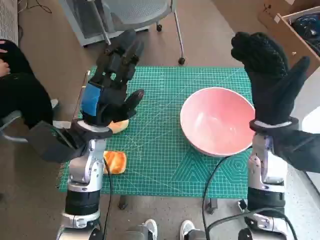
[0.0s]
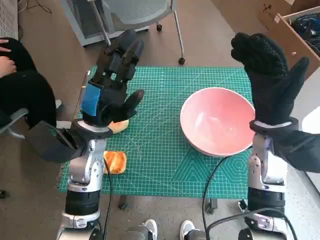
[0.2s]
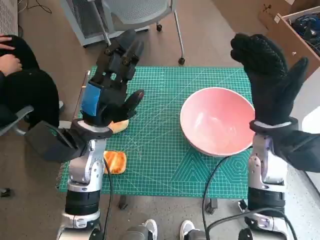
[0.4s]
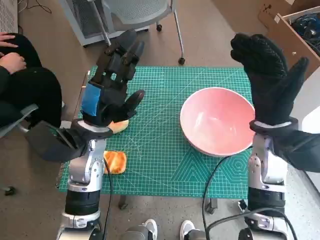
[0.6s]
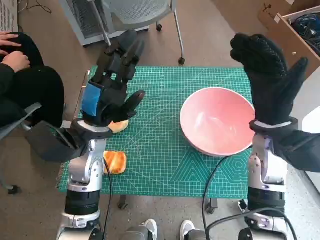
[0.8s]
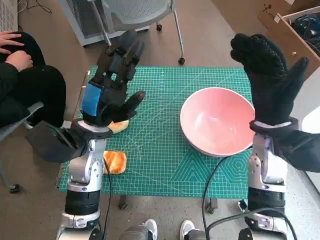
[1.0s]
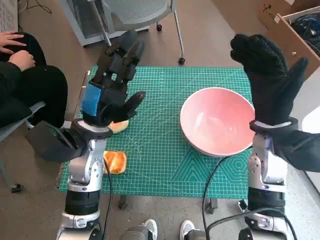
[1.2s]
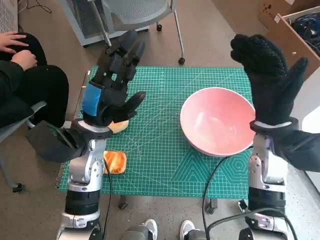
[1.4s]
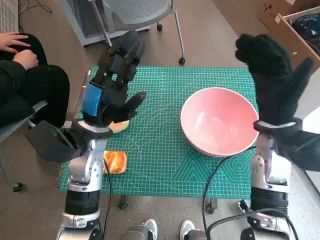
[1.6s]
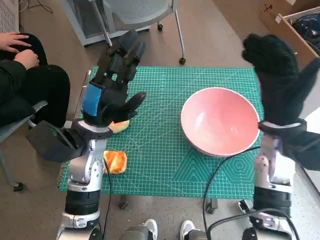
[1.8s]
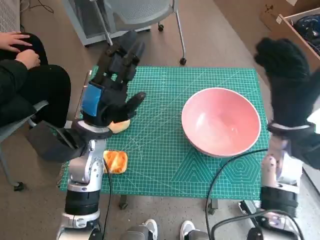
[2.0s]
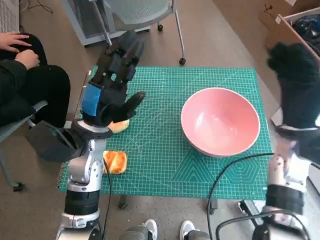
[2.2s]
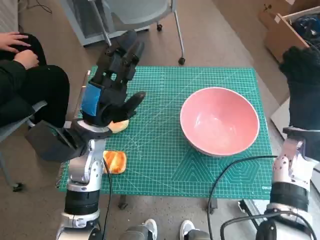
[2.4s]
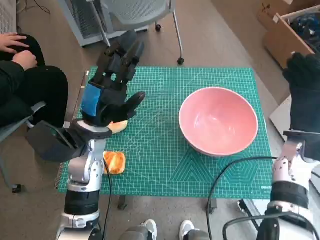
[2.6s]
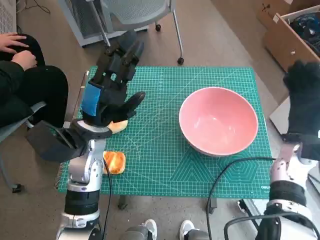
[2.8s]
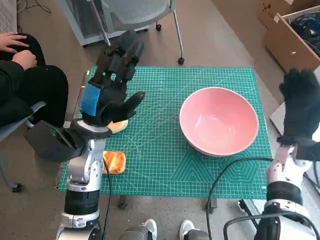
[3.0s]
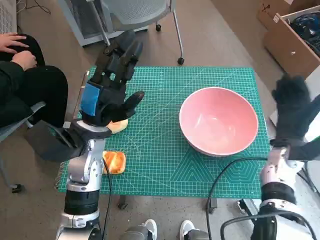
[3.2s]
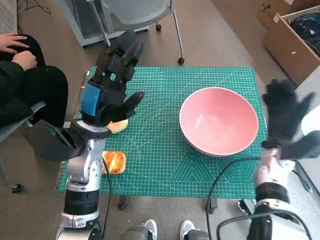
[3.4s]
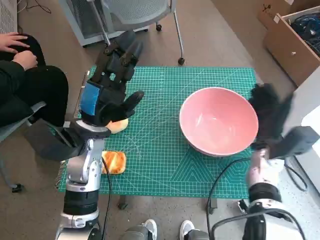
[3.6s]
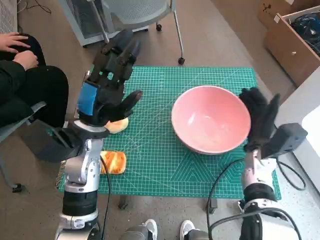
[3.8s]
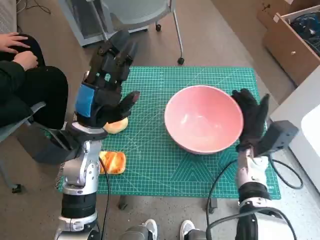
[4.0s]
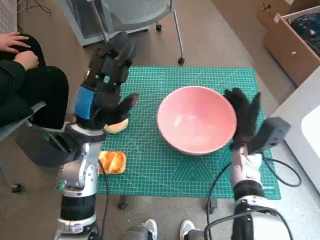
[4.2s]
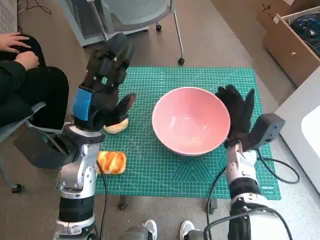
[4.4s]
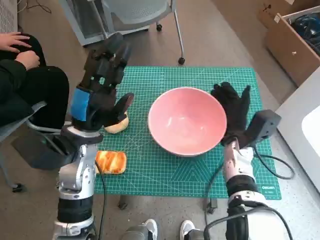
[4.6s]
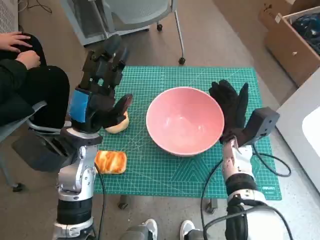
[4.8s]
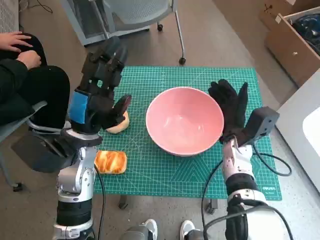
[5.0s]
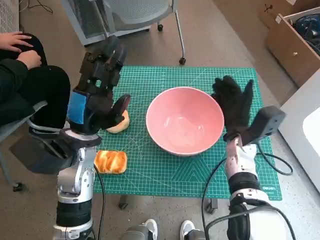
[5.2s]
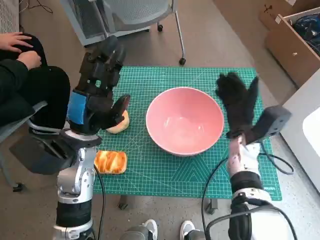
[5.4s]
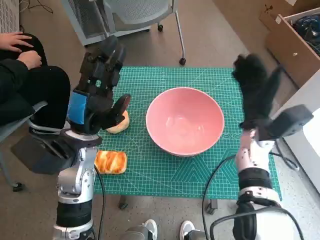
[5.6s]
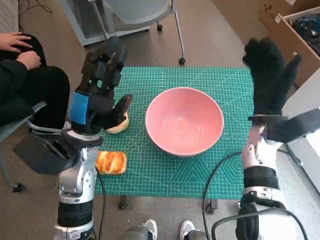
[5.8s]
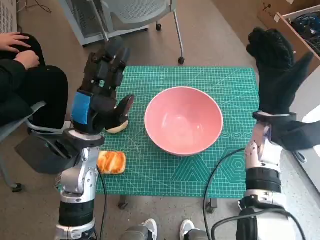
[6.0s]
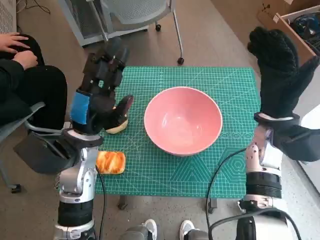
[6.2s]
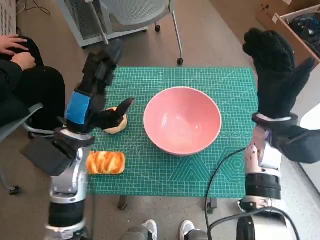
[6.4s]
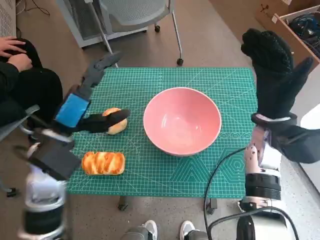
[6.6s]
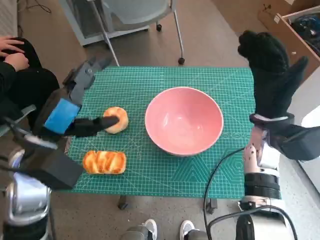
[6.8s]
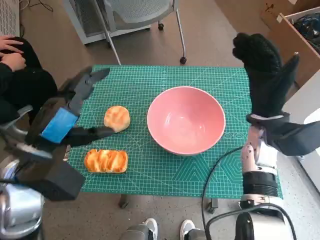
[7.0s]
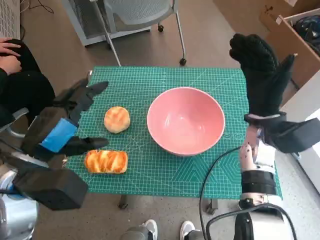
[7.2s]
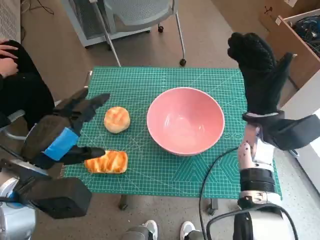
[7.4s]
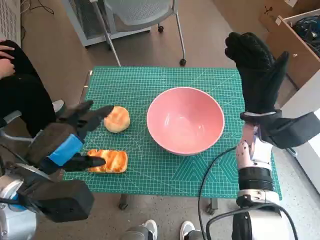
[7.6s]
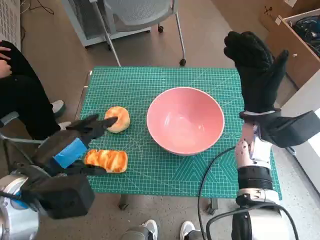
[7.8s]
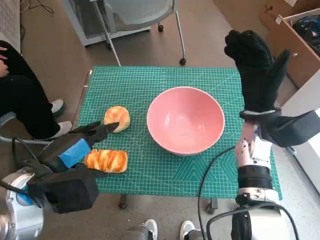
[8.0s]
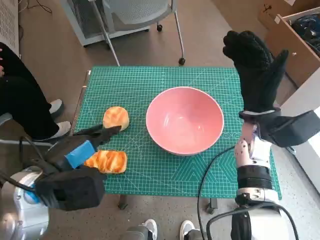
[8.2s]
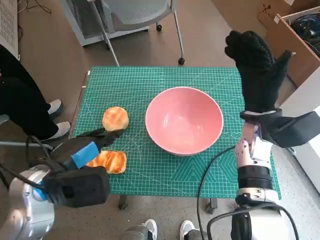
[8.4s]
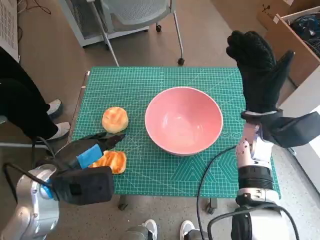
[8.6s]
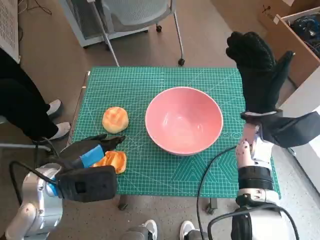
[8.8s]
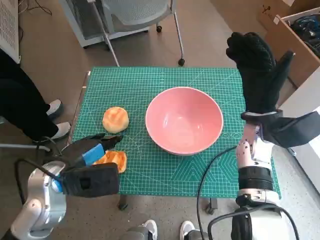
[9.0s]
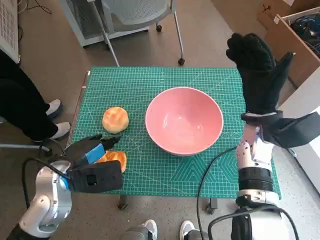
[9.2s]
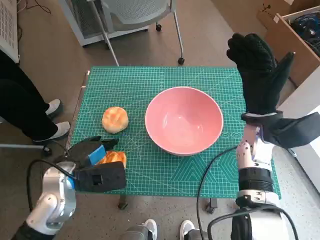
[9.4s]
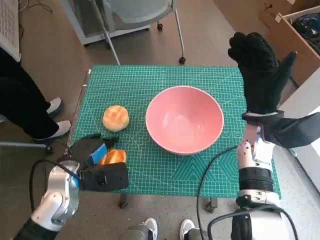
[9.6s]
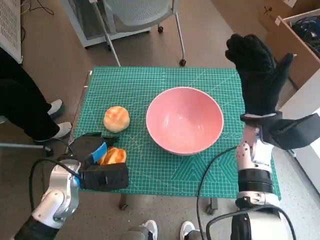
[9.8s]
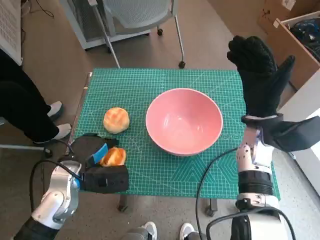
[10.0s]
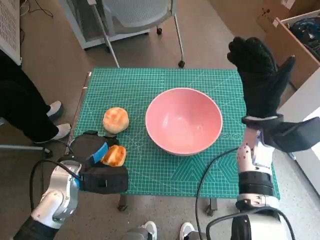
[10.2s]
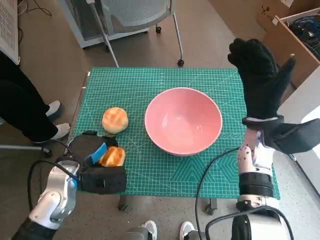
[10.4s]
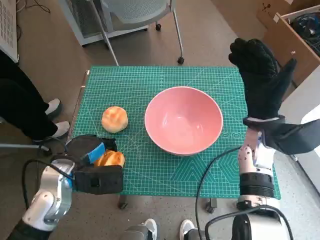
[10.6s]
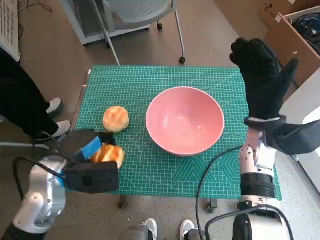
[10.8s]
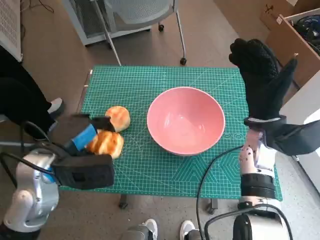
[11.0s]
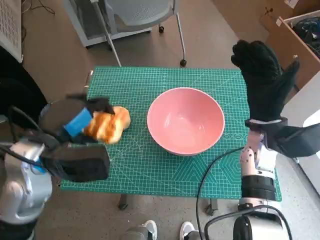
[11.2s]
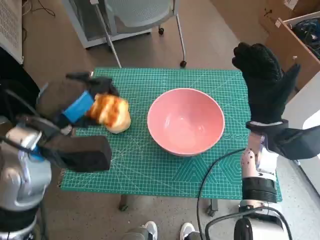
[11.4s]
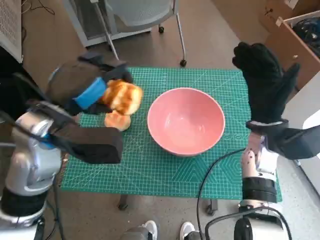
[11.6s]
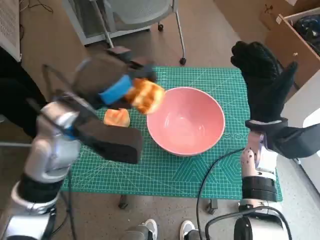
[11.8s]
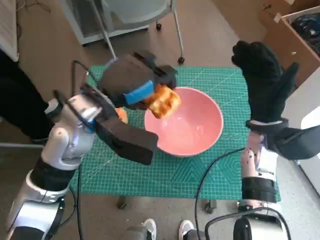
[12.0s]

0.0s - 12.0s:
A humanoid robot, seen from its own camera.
Step, 0.0s - 4.8s: Move the pink bowl to the center of table with right hand.
Step, 5.0s - 10.0s: Grasp the long bread with left hand.
1.6s - 3.0s: The right hand travels downward and to the right by about 10 cm.
3.0s - 4.4s: The right hand is displaced to the left by roughly 10 cm.
4.4s - 6.0s: The right hand is displaced upward by approximately 10 cm.
6.0s - 7.6s: The left hand shifts approximately 10 cm backward and to the left.
7.6s - 9.0s: The left hand changes place by roughly 5 cm.
9.0s - 10.4s: The left hand travels downward by some 5 cm.
10.4s - 12.0s: The left hand shifts roughly 15 cm upward and to the right.

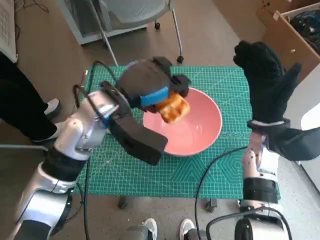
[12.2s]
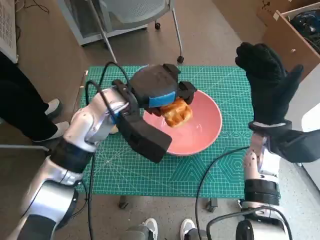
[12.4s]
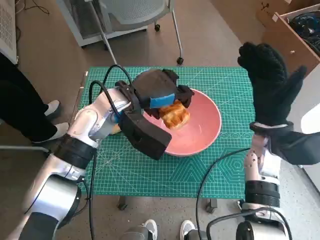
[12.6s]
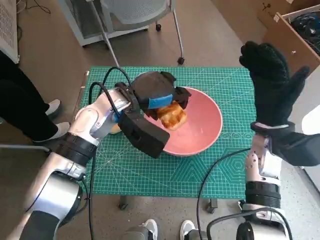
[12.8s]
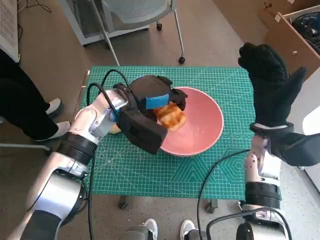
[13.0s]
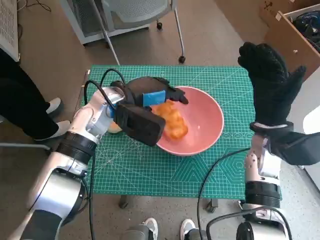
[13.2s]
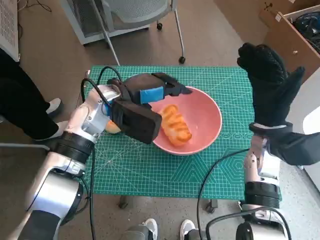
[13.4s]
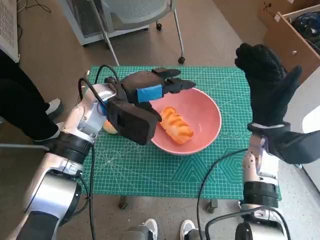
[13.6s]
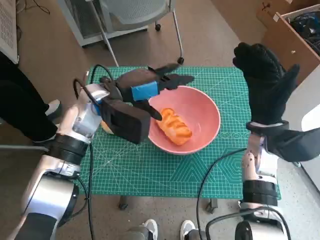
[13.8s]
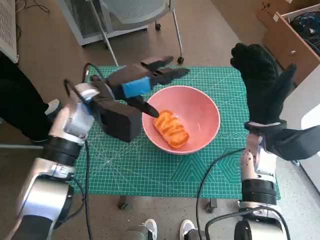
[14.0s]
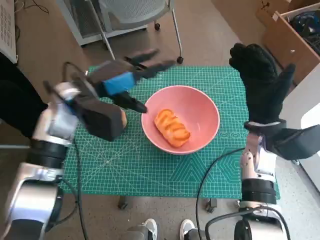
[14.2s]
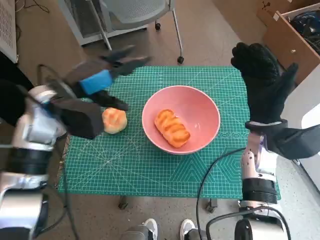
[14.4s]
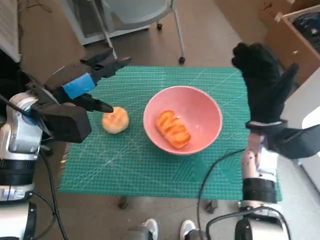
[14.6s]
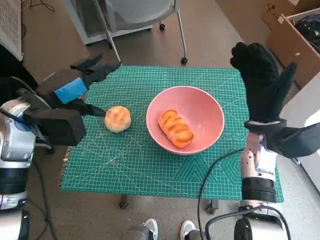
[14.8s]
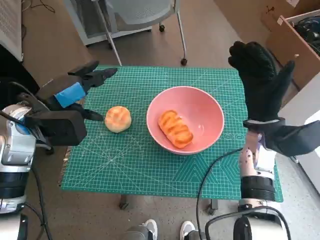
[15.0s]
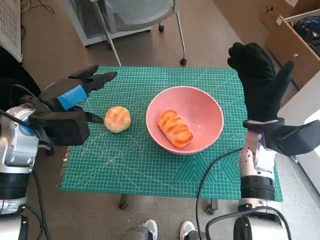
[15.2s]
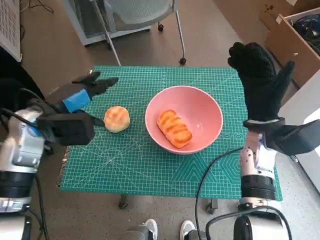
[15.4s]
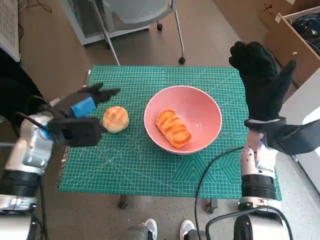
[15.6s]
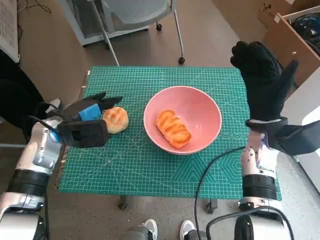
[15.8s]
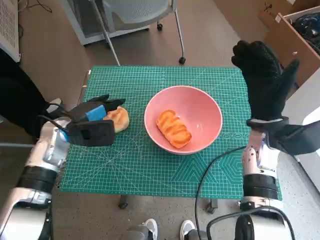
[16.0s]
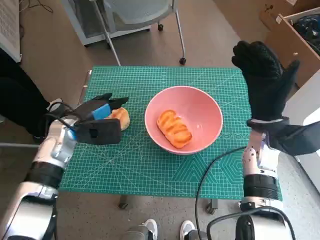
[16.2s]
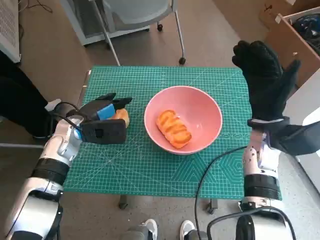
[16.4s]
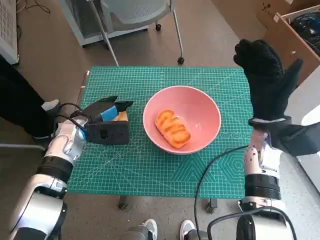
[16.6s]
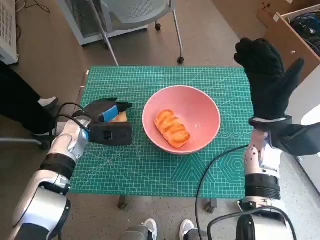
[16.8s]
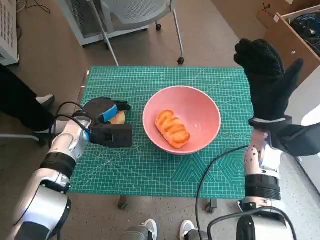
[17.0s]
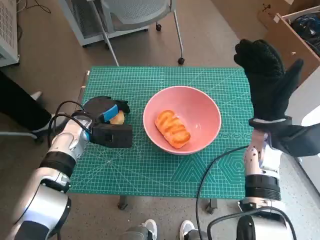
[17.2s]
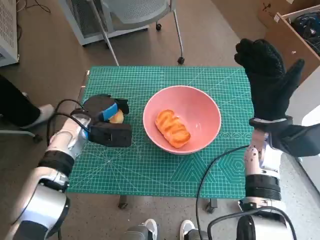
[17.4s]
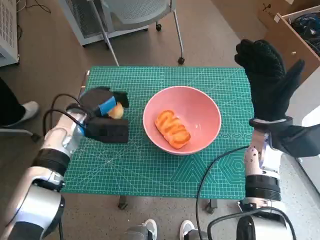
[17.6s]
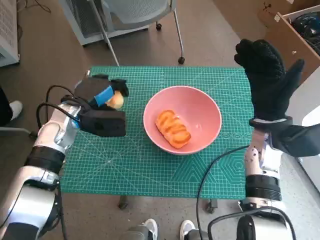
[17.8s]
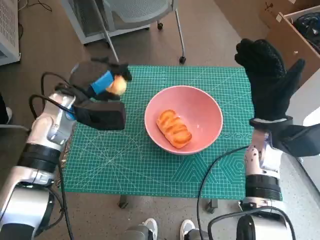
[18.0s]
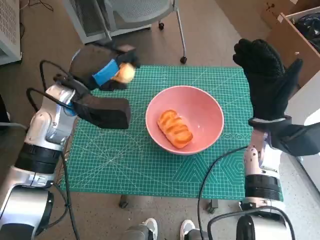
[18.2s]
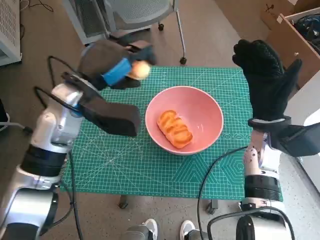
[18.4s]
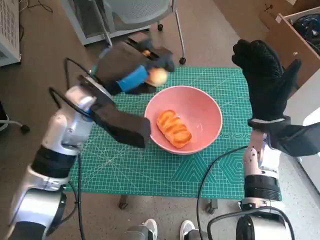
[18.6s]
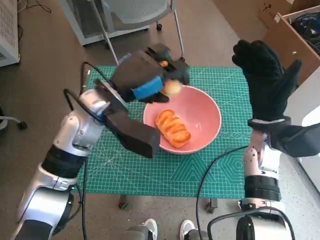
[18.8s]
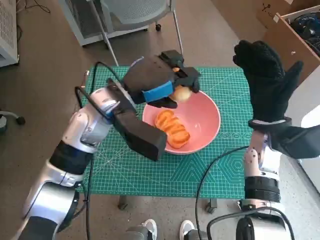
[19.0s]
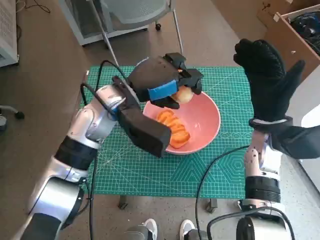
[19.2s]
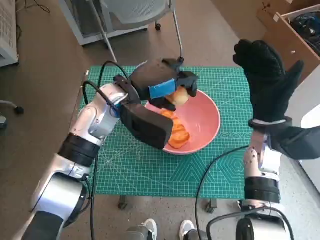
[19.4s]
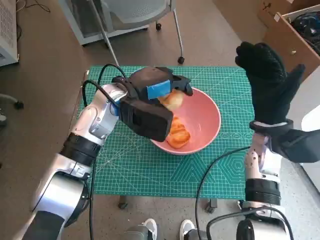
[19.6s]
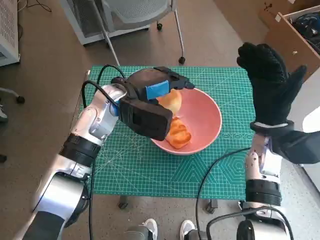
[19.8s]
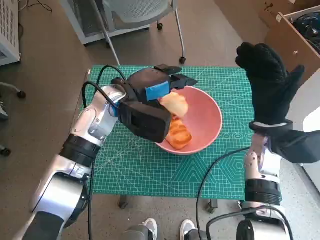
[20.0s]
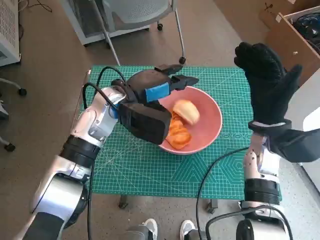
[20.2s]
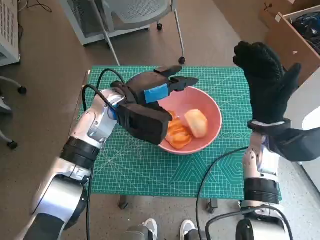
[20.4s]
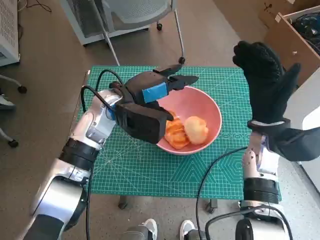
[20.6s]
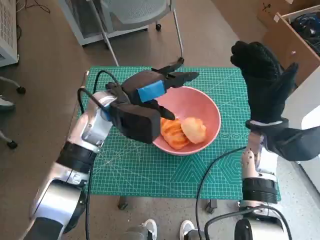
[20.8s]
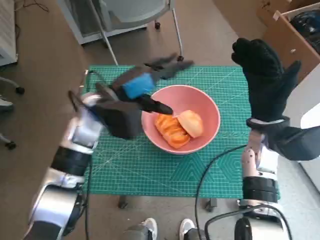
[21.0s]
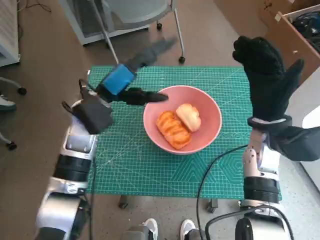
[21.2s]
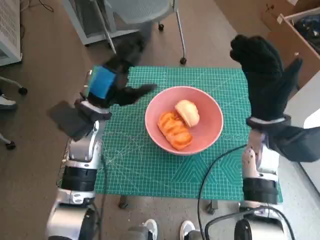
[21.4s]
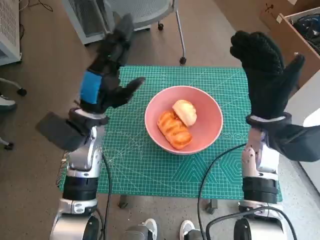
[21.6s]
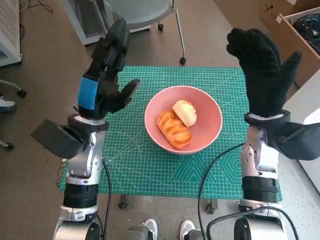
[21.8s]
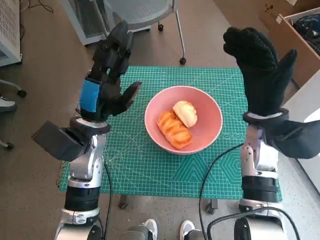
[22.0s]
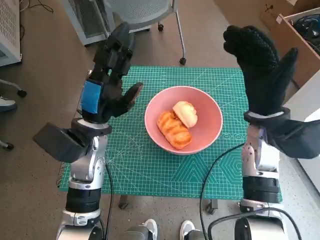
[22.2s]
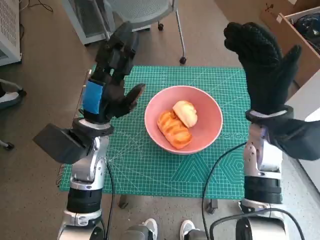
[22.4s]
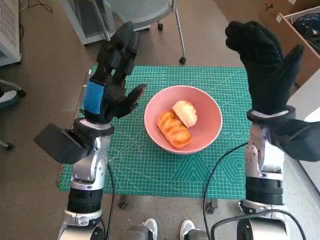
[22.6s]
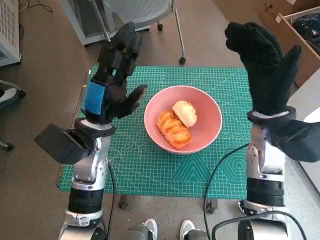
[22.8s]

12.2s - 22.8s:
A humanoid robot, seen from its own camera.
Step, 14.0s - 17.0s: Grasp the round bread with left hand.
Step, 17.2s - 20.2s: Place the round bread in pink bowl with left hand.
12.2s - 13.8s: The left hand ends up roughly 5 cm from where it was.
13.8s - 15.2s: The left hand heads to the left and backward, covering approximately 15 cm.
15.2s - 16.8s: The left hand moves downward, approximately 10 cm.
16.8s - 18.2s: The left hand travels upward by some 10 cm.
18.2s - 19.8s: The left hand goes about 10 cm to the right.
19.8s - 21.2s: The left hand shifts by some 5 cm.
21.2s - 22.8s: The left hand changes place by about 5 cm.
